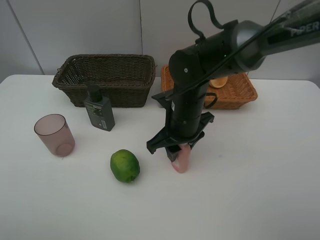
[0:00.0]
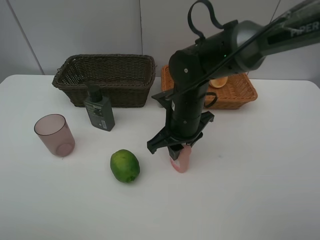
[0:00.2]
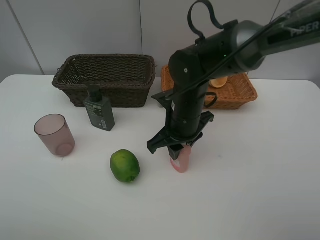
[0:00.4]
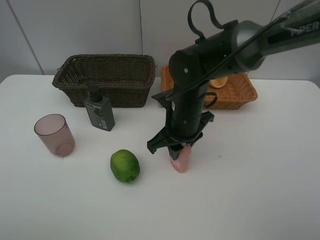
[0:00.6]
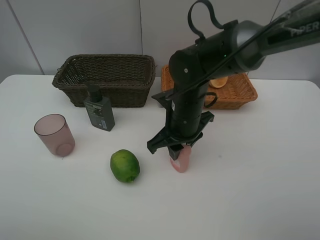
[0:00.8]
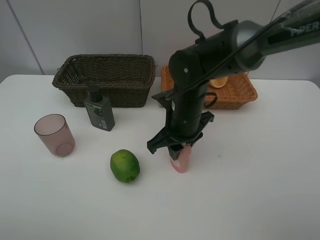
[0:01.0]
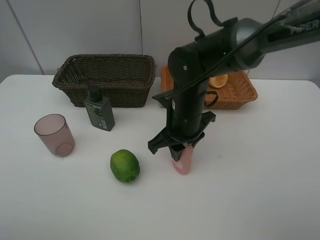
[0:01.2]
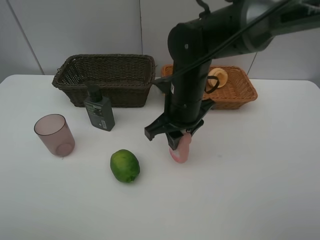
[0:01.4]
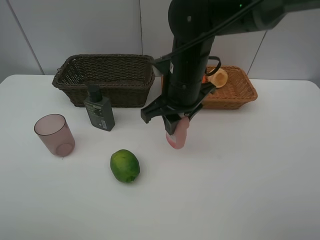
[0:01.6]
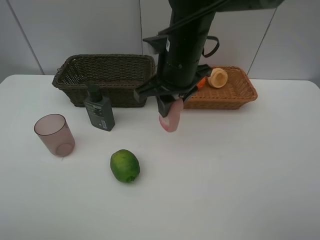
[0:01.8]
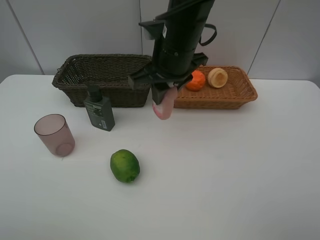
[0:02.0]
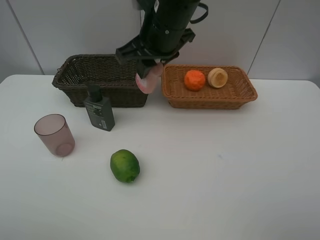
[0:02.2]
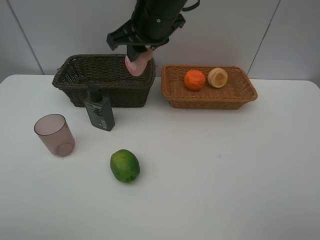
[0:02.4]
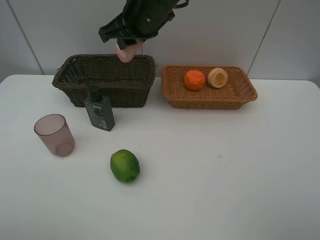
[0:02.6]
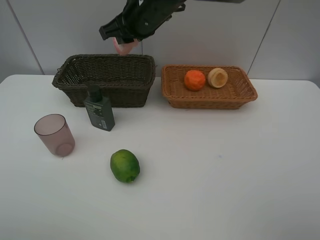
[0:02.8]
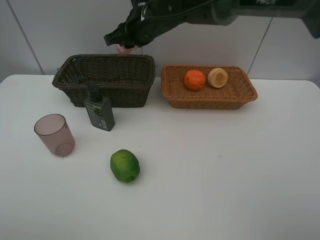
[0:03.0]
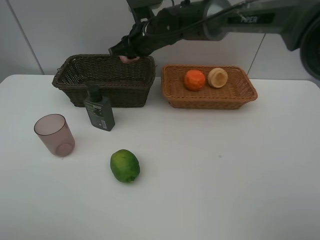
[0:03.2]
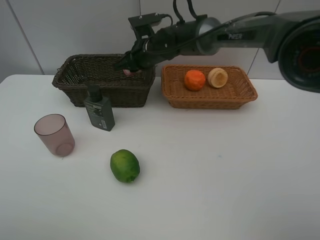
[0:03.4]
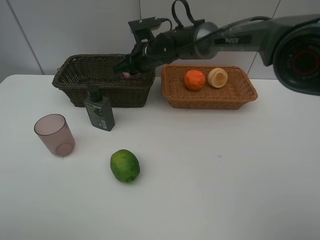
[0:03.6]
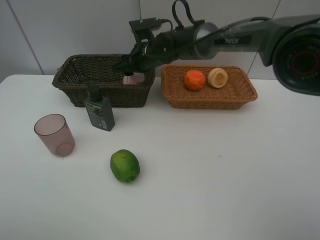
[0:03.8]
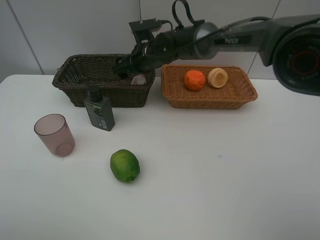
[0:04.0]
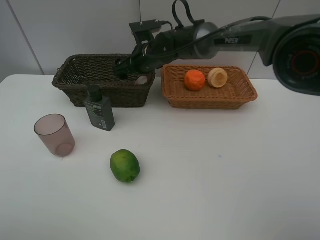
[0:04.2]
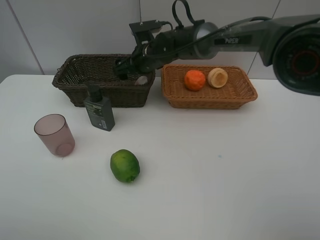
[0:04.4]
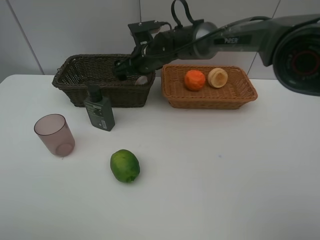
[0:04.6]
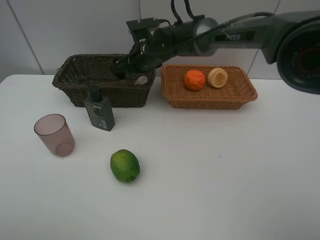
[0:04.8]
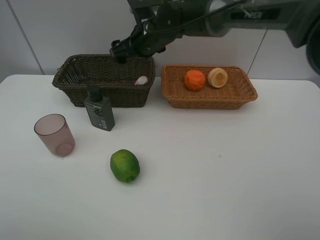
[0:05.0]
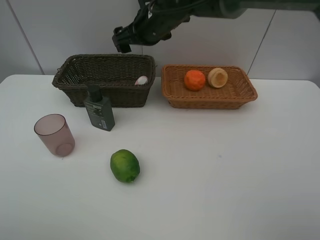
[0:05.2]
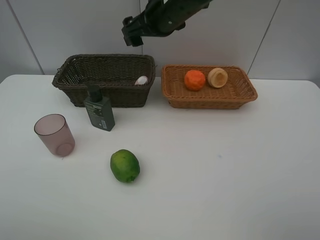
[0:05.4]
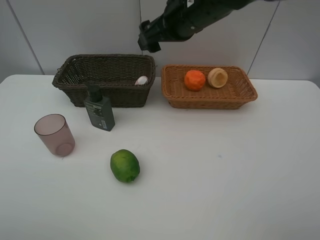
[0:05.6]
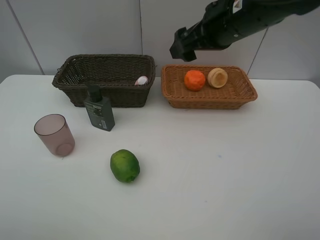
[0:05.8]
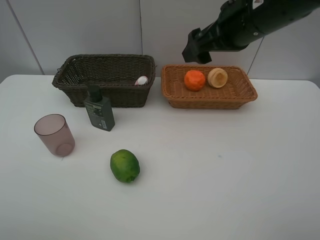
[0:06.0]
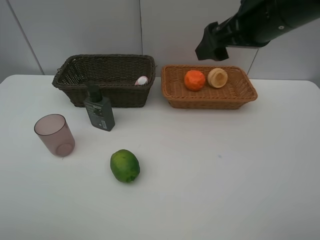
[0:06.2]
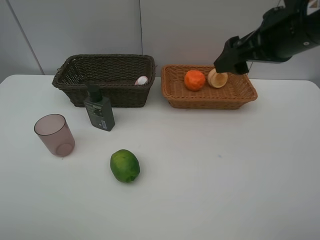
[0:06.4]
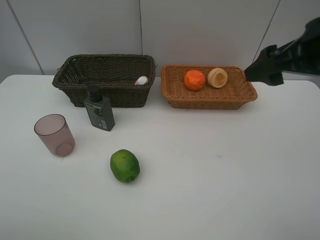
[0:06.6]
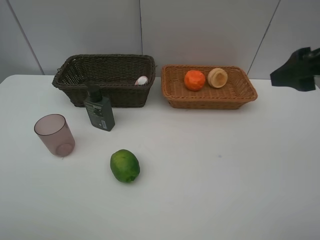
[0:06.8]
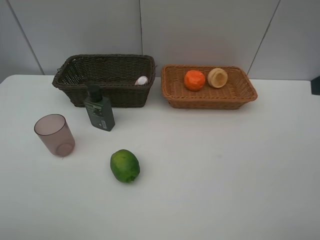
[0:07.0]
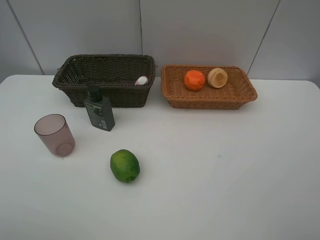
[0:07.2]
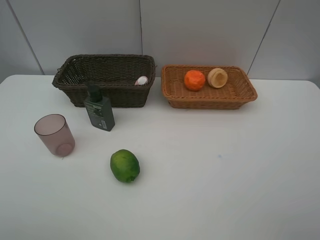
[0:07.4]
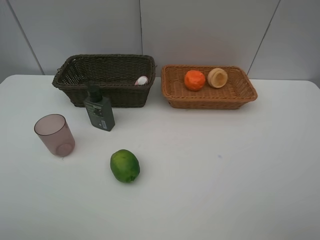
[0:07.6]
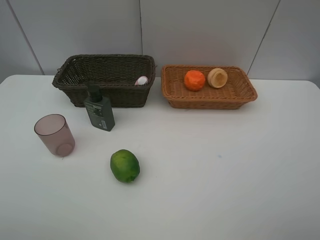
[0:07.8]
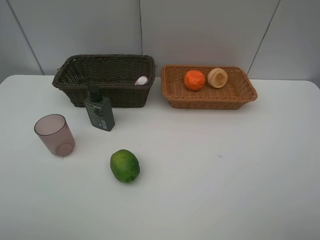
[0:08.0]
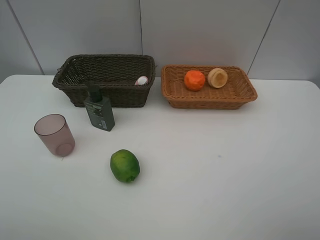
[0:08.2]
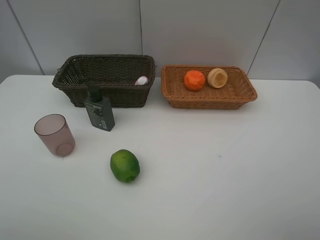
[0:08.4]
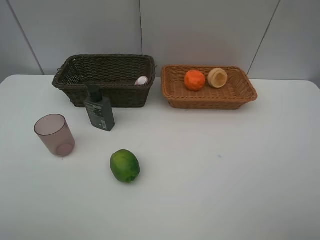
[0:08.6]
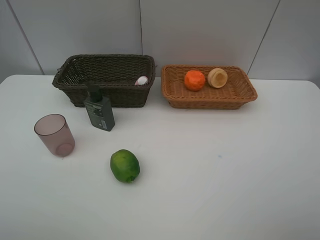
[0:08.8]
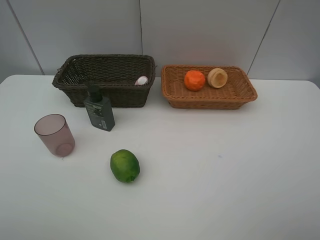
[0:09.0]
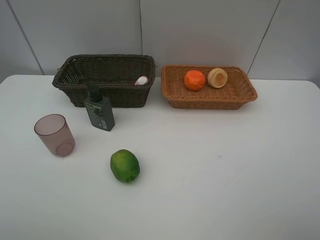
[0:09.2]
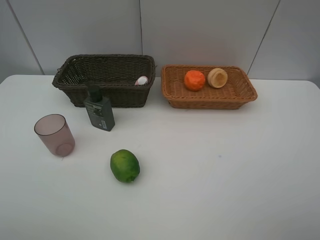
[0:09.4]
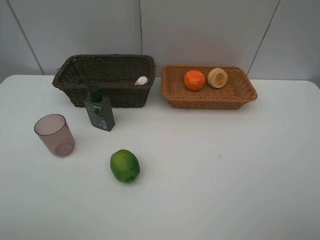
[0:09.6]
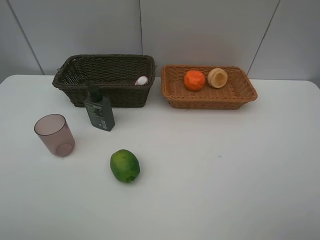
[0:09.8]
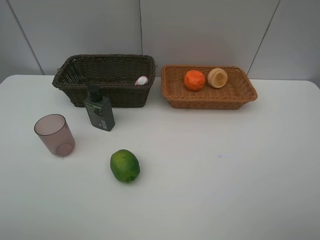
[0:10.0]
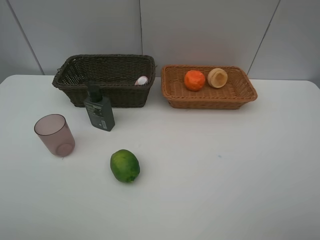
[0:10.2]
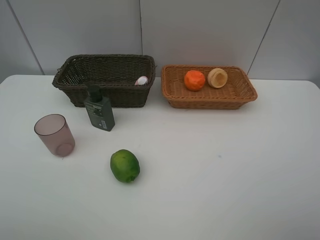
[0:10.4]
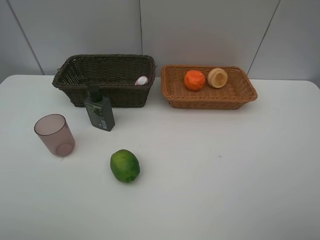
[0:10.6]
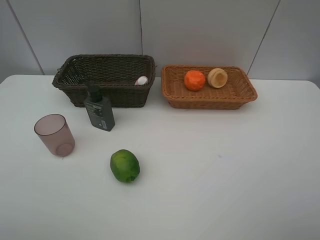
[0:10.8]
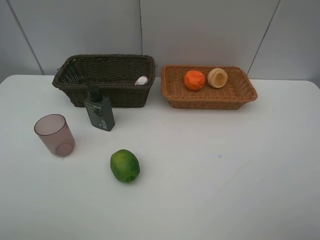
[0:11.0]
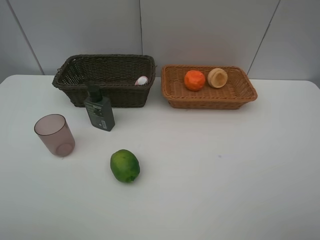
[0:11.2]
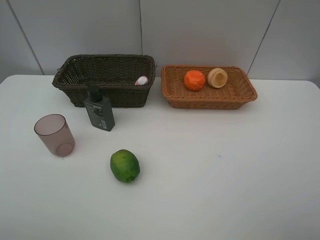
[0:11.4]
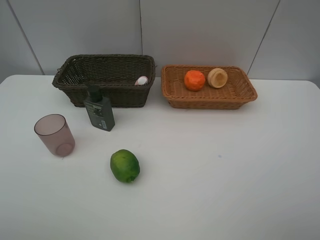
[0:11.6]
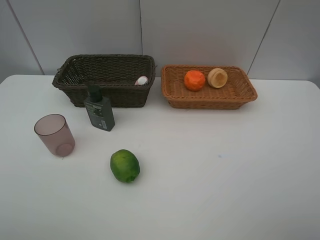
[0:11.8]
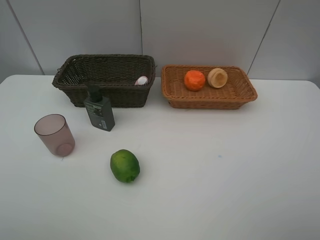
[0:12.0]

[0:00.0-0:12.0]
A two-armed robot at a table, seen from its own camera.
Task of the whole recording: place multiple objects separately in different baskets.
0:00.0 to 0:01.6: The right gripper goes approximately 10 cm upward.
0:01.6 to 0:03.0: The right gripper heads forward and to the left, covering some 15 cm.
0:03.0 to 0:04.4: The right gripper shifts roughly 5 cm downward, and opens up.
0:04.4 to 0:06.0: The right gripper moves to the right, backward and upward, approximately 25 cm.
0:06.0 to 0:07.6: The right gripper is displaced backward and to the right by roughly 30 cm.
0:09.0 to 0:12.0: Neither gripper changes place.

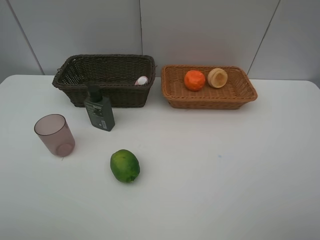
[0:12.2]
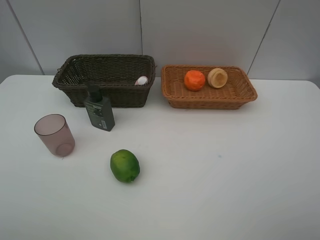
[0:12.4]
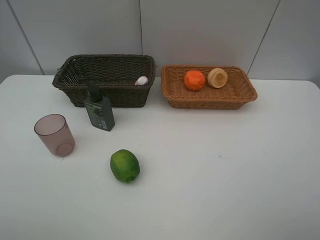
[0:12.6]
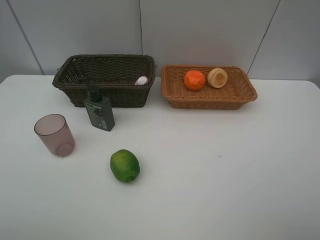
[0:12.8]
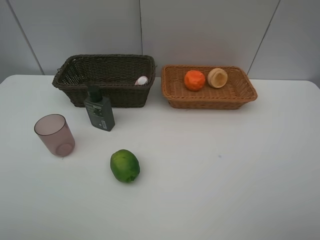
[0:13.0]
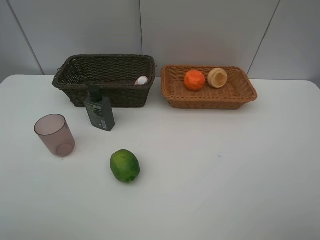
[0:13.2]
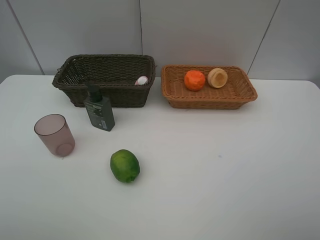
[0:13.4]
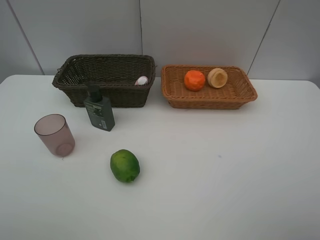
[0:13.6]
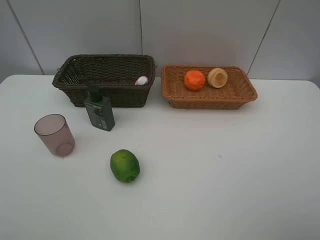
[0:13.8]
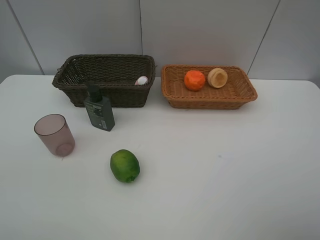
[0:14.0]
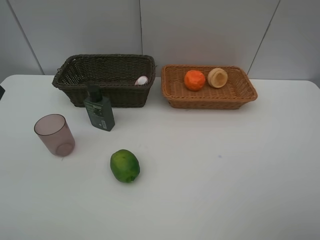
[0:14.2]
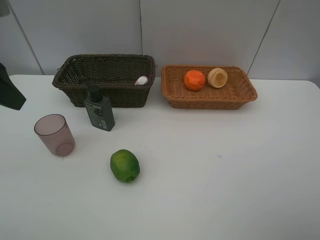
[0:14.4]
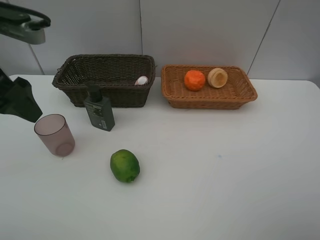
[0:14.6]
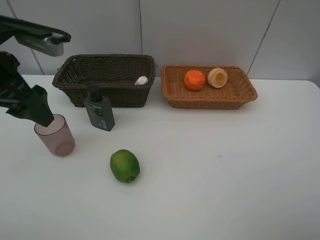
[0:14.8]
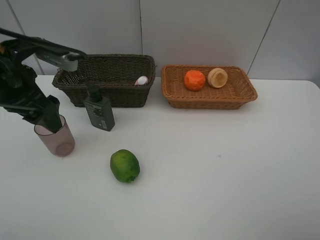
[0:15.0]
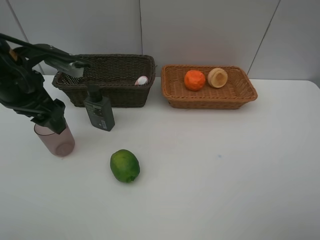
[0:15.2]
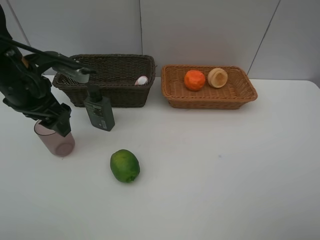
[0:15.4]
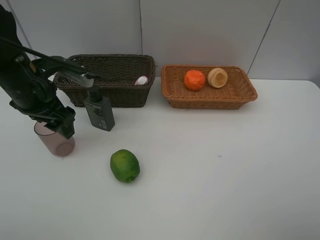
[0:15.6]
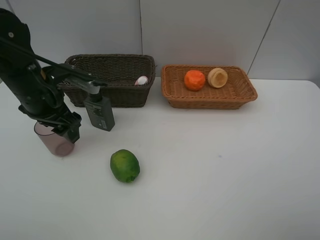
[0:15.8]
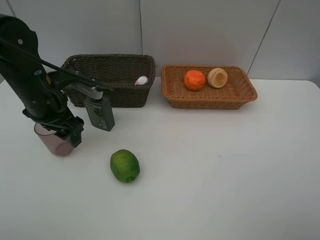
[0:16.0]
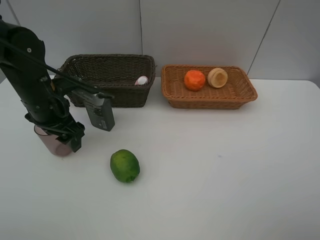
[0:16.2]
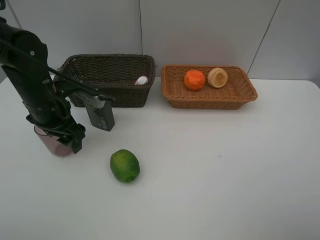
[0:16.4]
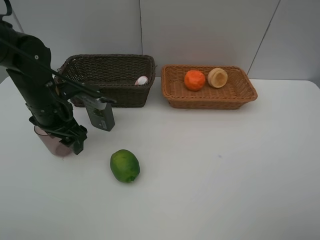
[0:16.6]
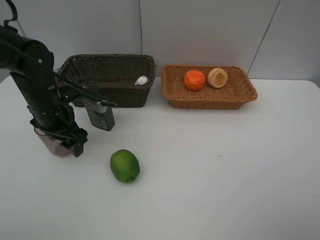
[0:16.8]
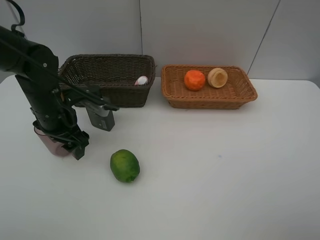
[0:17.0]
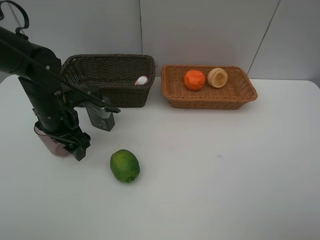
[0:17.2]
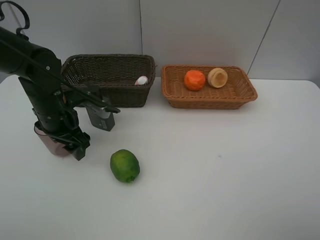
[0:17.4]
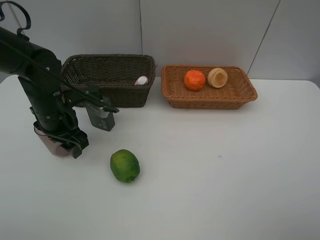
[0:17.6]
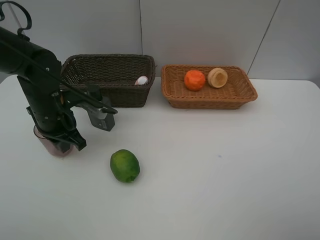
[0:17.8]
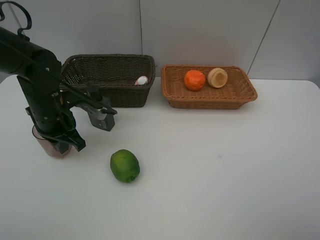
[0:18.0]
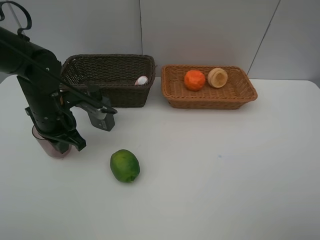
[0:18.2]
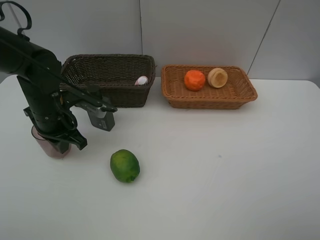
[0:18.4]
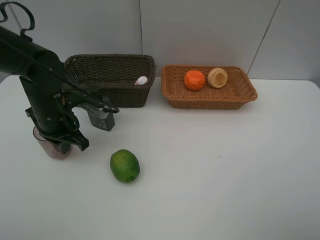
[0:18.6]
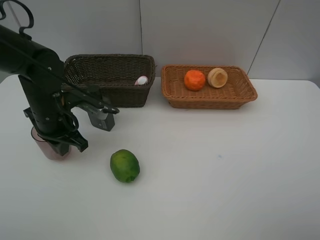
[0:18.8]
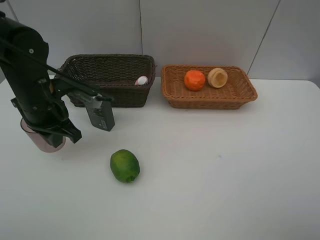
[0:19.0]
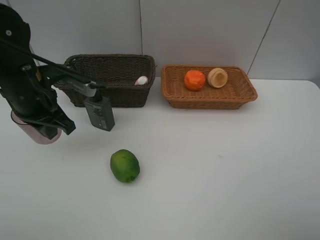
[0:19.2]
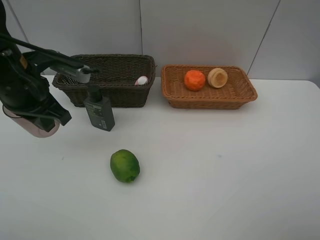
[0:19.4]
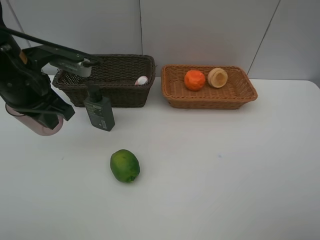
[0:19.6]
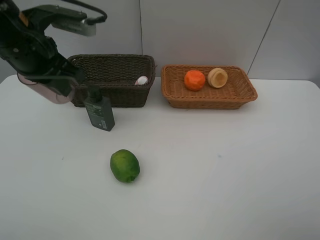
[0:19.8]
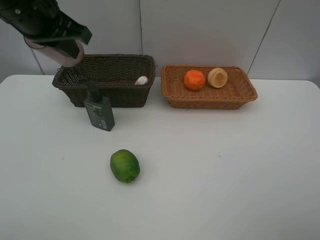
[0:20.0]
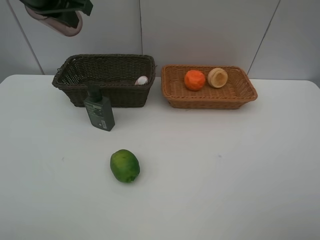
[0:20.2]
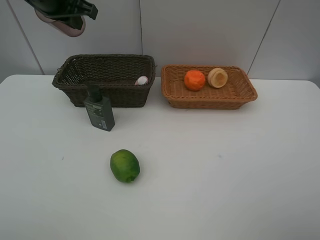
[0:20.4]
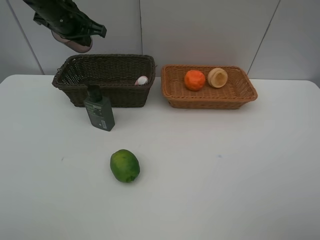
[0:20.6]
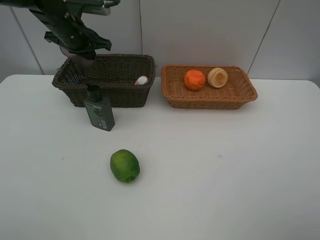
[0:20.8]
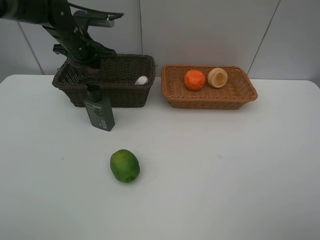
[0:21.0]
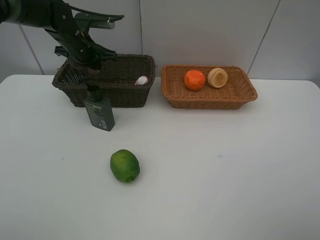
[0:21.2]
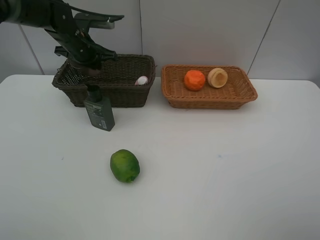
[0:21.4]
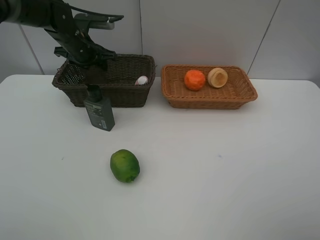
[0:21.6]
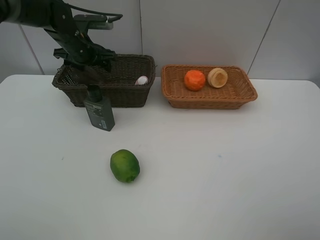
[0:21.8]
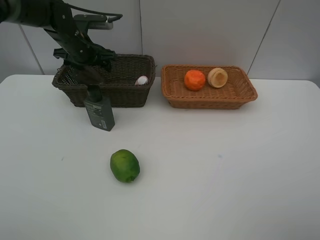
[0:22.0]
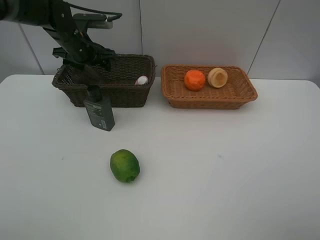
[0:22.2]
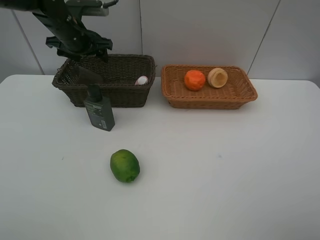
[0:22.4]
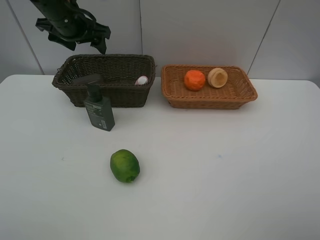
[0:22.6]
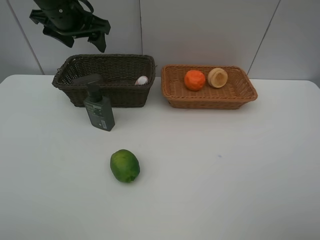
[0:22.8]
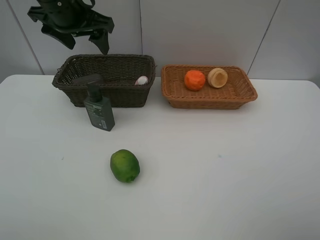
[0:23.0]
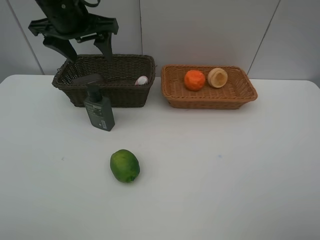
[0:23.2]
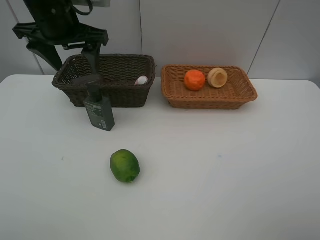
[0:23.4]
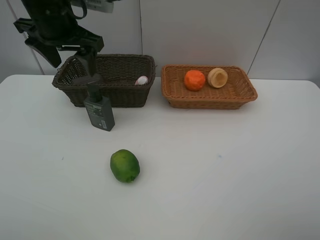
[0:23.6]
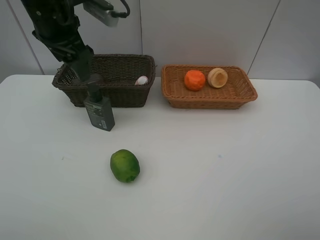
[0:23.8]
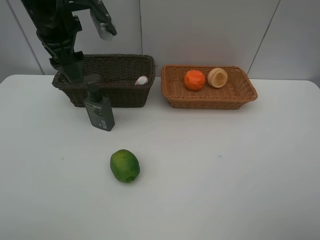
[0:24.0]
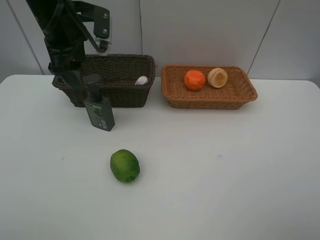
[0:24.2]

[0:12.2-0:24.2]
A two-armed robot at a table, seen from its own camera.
Task of the whole recording: place multiple objects separately in different baskets.
0:13.8 to 0:15.2: The left gripper heads forward, downward and to the right, covering roughly 20 cm.
0:15.2 to 0:16.6: The left gripper is displaced downward by roughly 10 cm.
0:16.6 to 0:18.2: The left gripper closes.
0:18.2 to 0:19.8: The left gripper heads upward, covering roughly 15 cm.
0:19.8 to 0:21.2: The left gripper goes about 20 cm forward and downward.
0:21.2 to 0:22.6: The left gripper goes approximately 10 cm upward, and opens up.
0:22.6 to 0:24.2: The left gripper moves backward, roughly 5 cm.
